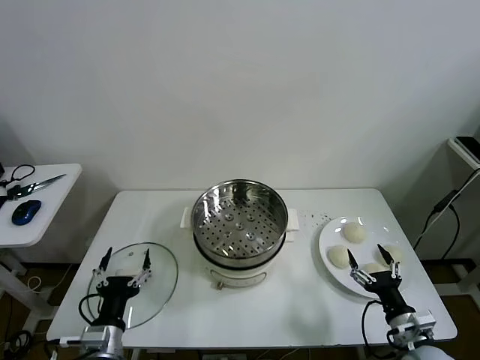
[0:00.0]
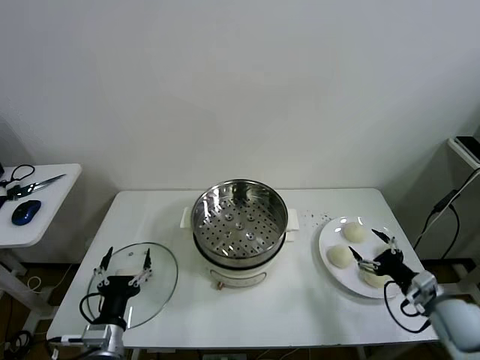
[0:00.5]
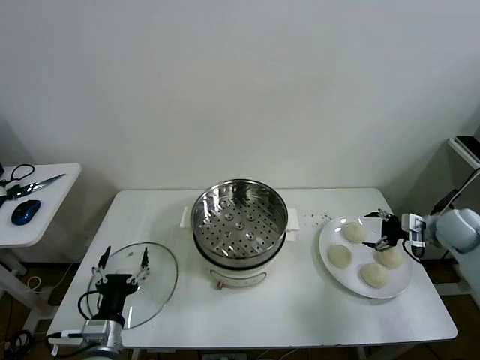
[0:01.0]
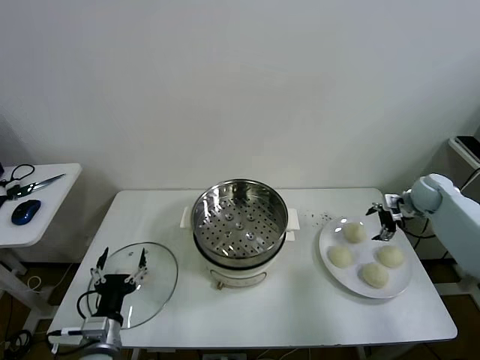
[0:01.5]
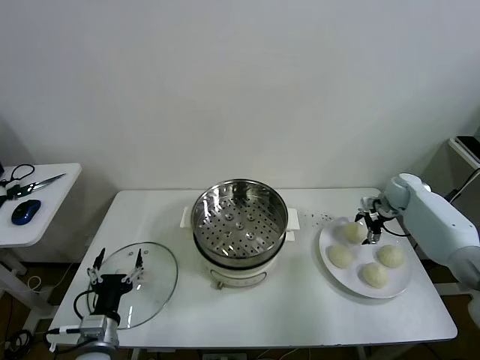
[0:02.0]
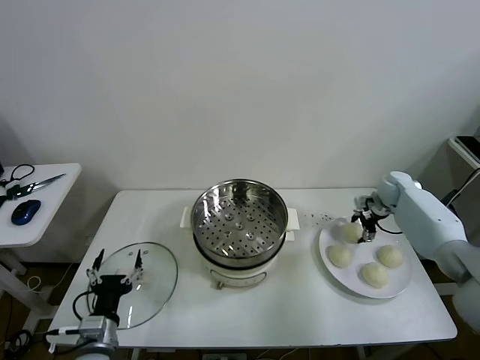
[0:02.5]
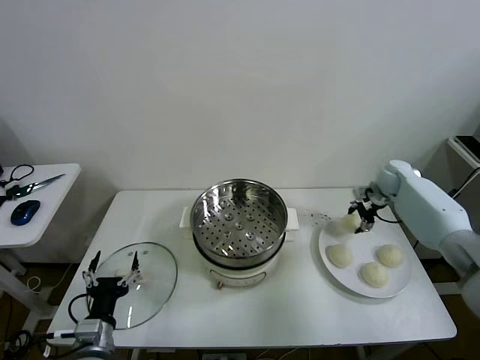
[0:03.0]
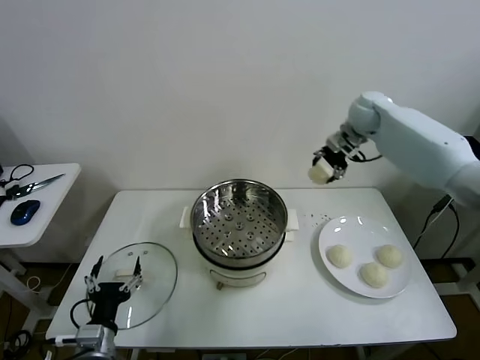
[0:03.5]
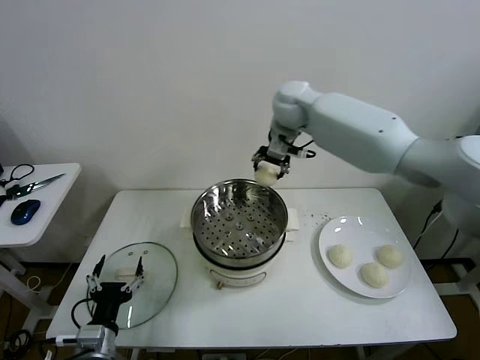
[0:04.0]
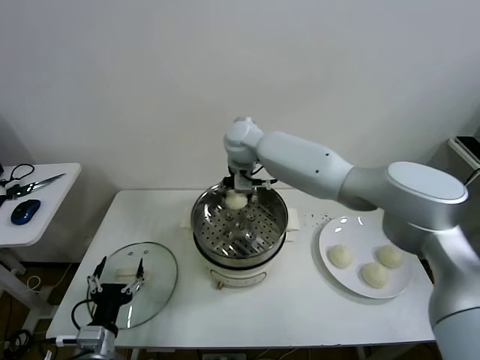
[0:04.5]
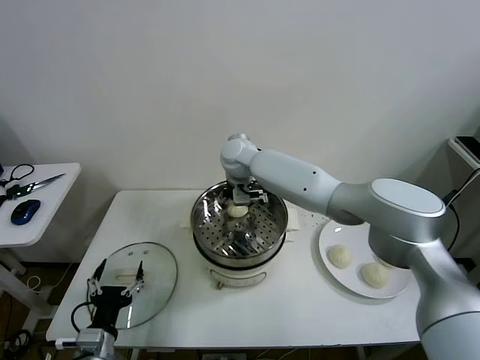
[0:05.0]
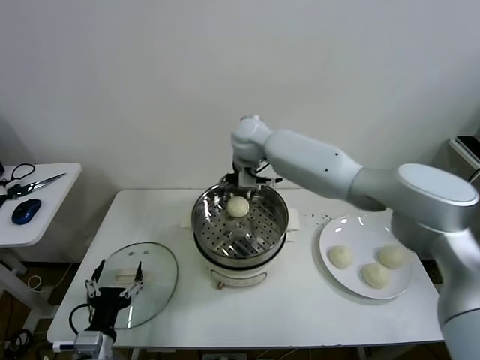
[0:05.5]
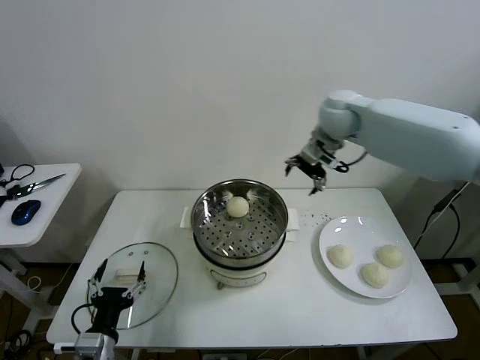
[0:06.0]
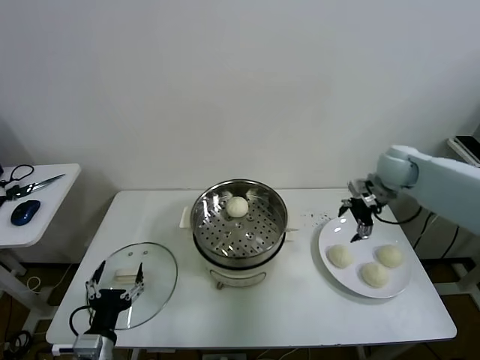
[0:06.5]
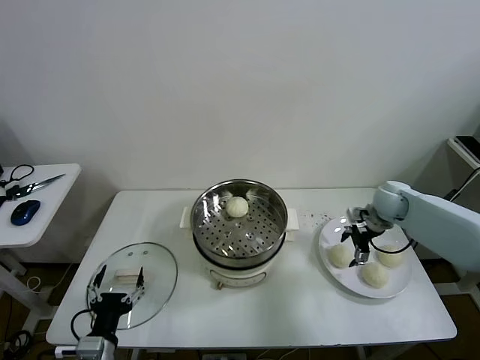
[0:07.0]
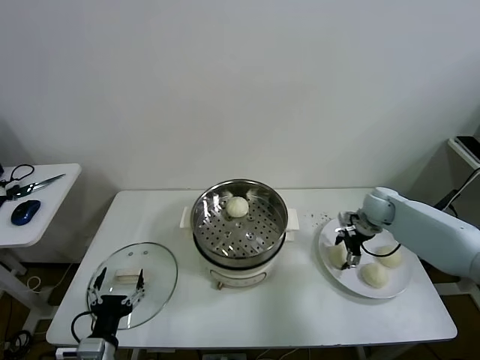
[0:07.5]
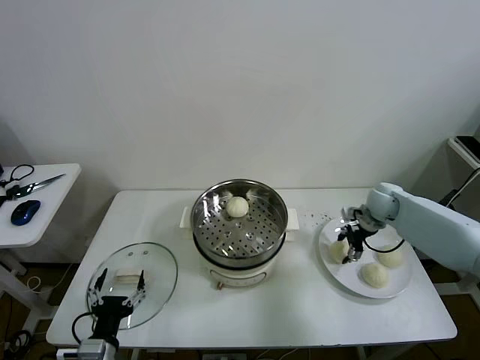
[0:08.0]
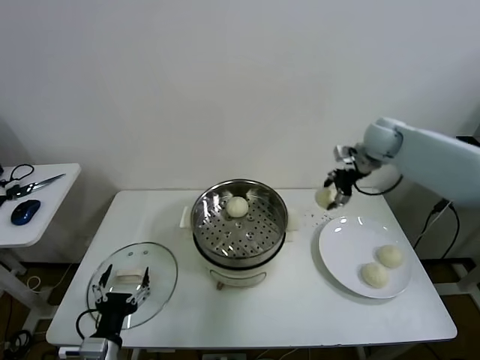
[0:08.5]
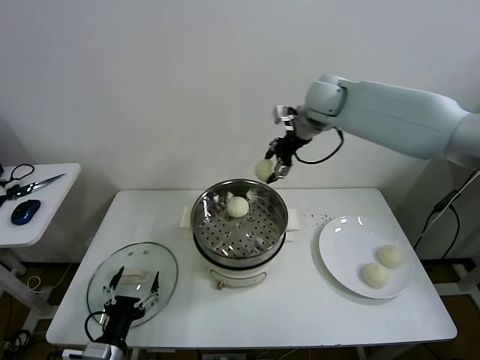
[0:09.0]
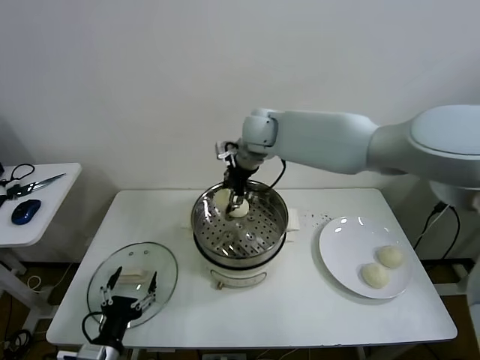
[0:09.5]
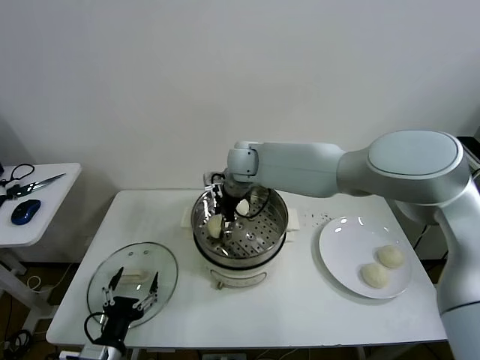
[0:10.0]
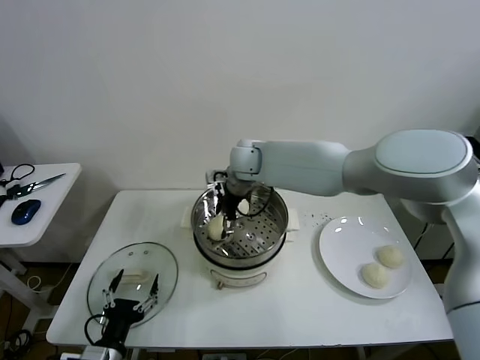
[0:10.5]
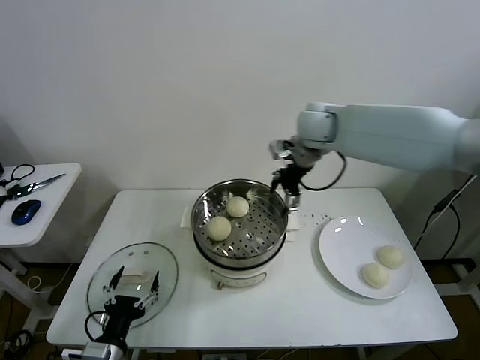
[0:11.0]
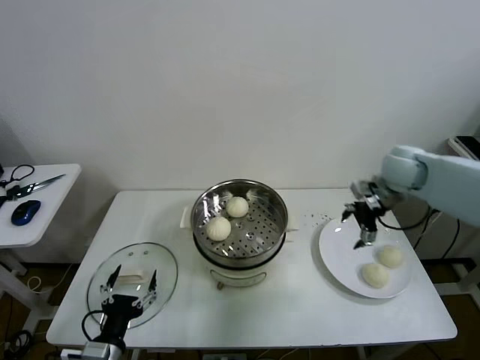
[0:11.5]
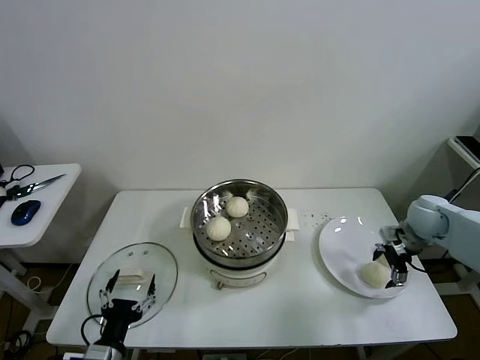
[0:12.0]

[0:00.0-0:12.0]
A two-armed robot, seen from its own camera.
Task of the whole recording: take steamed baozi put them in steamer then cover it.
Step, 0:00.0 to 0:02.5: Grasp the baozi in the plate with right gripper.
Step, 0:03.0 to 0:05.0: Place the baozi on the steamer with right gripper.
Step, 0:05.5 to 0:07.5: Grasp the baozi in the plate with right gripper.
Step, 0:08.0 to 0:10.0: Place the baozi on the steamer with right gripper.
0:02.0 to 0:04.0: The right gripper moves to the left and upward, about 40 cm, and closes.
0:04.0 to 0:06.0: The right gripper shifts approximately 15 cm to the right, and opens.
0:06.0 to 0:08.0: The right gripper is displaced downward and to the right by roughly 25 cm, and closes up.
0:08.0 to 0:10.0: The right gripper travels to the left by approximately 35 cm.
0:10.0 to 0:12.0: The right gripper heads to the right, covering about 40 cm, and opens its fingers.

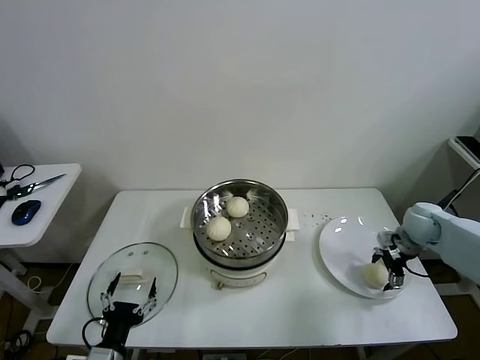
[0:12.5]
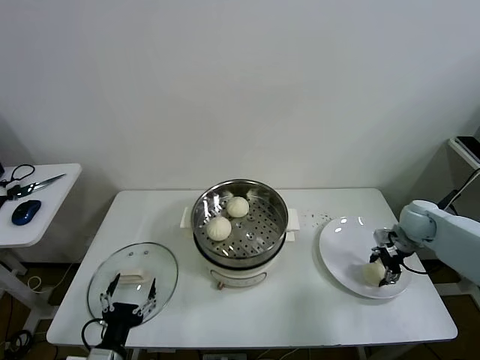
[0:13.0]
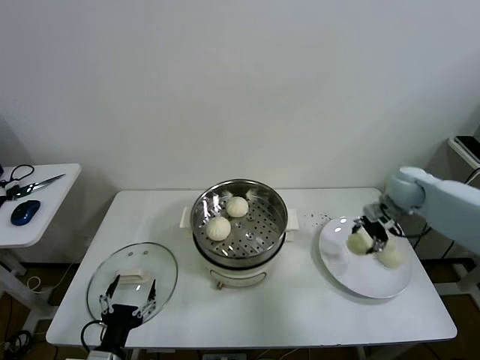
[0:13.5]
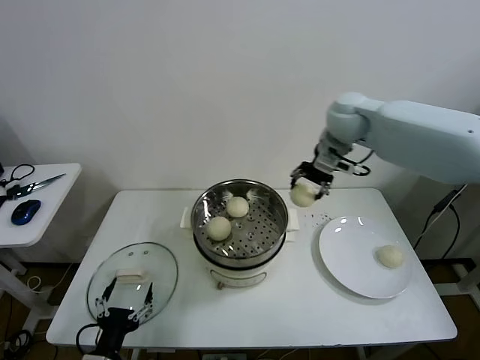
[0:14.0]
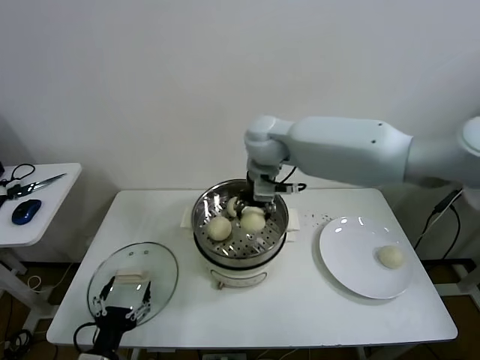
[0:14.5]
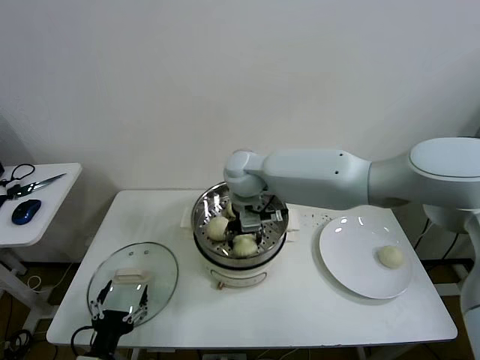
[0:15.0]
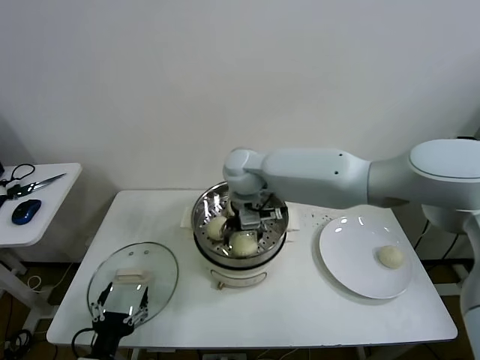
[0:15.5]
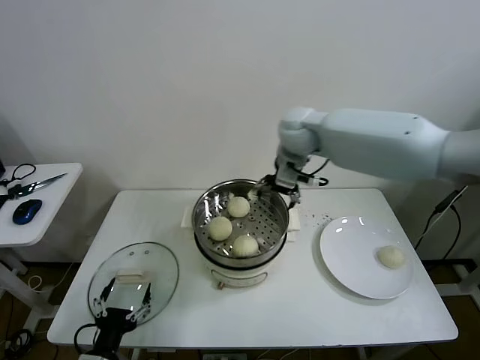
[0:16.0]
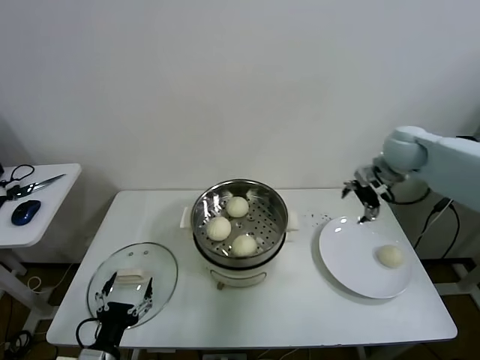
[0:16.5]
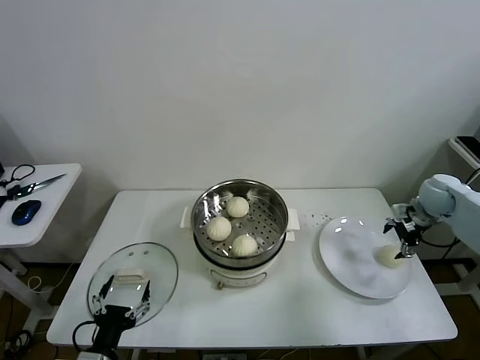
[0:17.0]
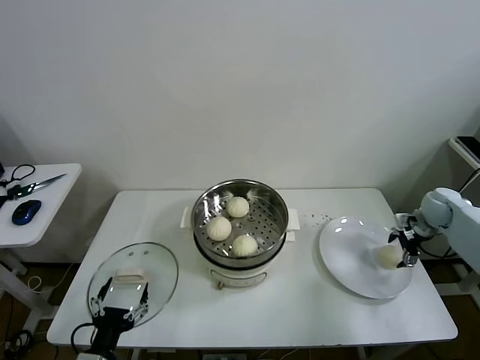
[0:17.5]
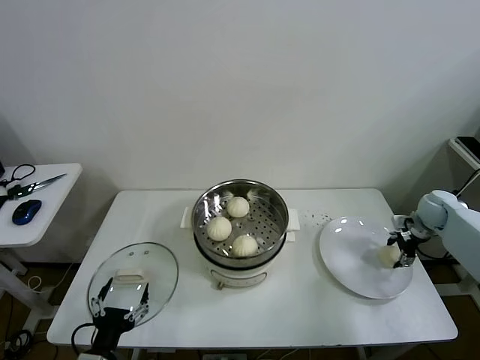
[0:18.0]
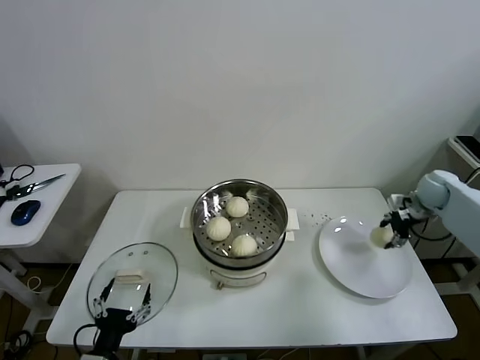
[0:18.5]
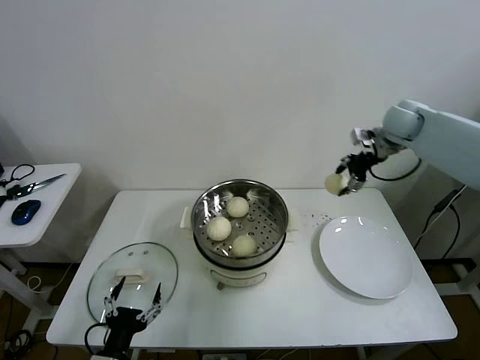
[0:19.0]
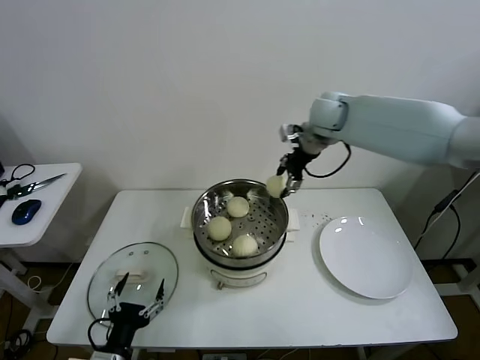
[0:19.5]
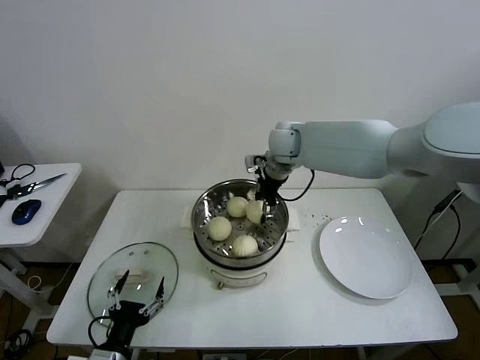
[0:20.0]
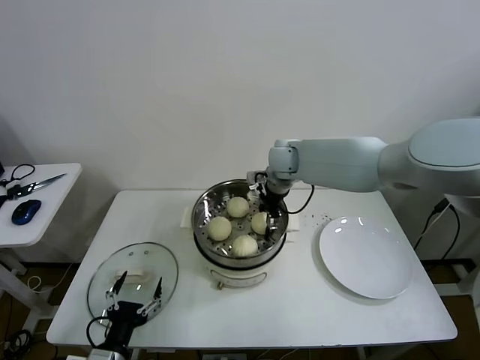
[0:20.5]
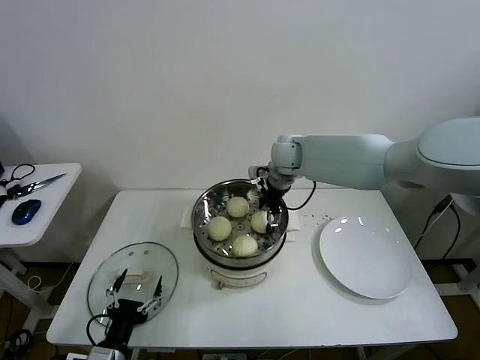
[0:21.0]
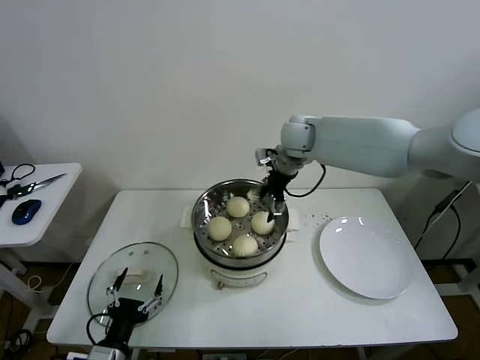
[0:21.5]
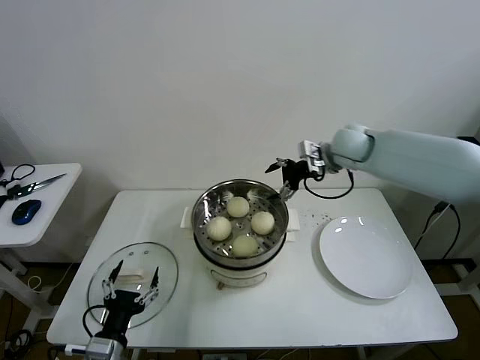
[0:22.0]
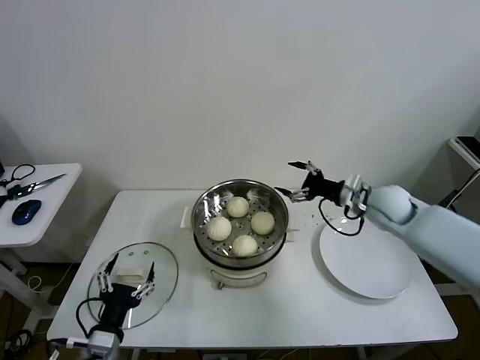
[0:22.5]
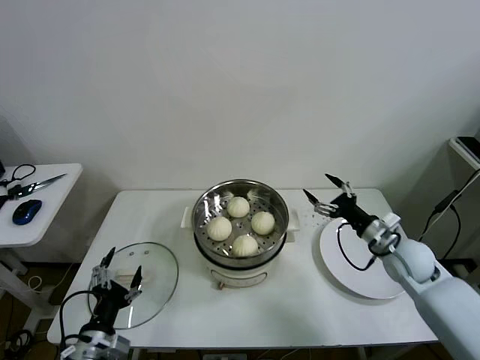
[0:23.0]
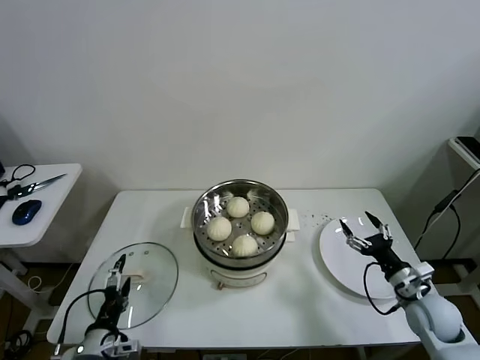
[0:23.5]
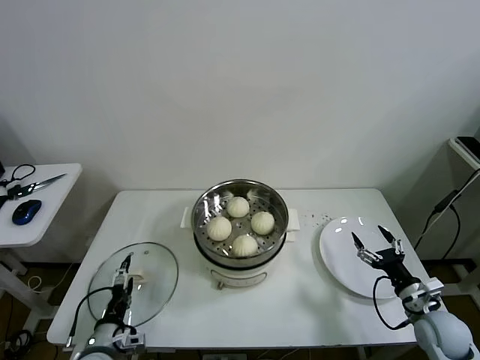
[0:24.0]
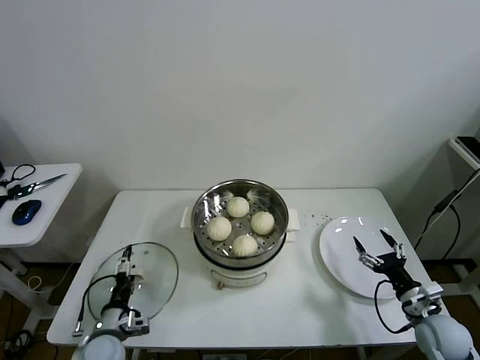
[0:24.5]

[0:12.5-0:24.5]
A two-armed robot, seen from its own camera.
Task of the whole recording: take steamed baozi put them in steamer then cover it.
Step, 0:13.5 to 0:15.0: Place the baozi on the steamer with right gripper.
Step, 0:15.5 to 0:18.0: Grasp the baozi in the plate with right gripper.
Step, 0:18.5 to 0:20.5: Place the baozi on the steamer with right gripper.
0:12.5 to 0:14.5: The right gripper moves to the left and upward, roughly 50 cm, and closes.
0:14.5 to 0:16.5: The right gripper goes about 35 cm to the right, and opens its fingers.
0:16.5 to 0:18.5: The right gripper moves to the right and downward, approximately 15 cm, and closes up.
0:18.5 to 0:20.5: The right gripper moves to the left, approximately 40 cm.
0:20.5 to 0:22.5: The right gripper is displaced to the right and backward by about 25 cm, and opens up.
0:22.5 to 0:24.5: The left gripper travels downward and forward by approximately 10 cm. Meanwhile the right gripper travels backward, downward and to the right by some 30 cm.

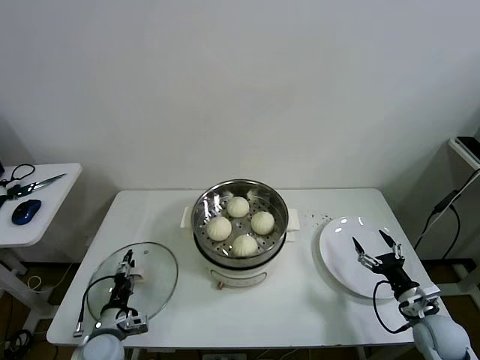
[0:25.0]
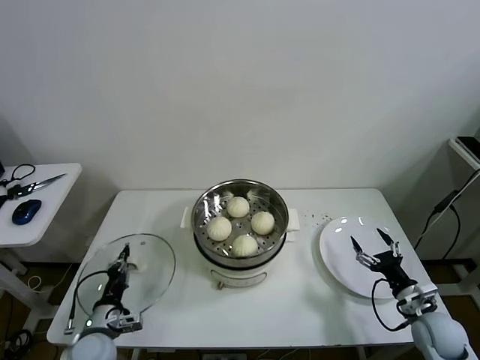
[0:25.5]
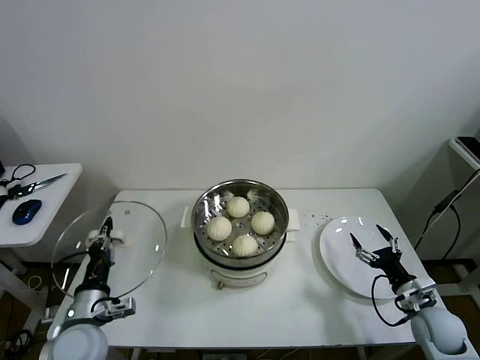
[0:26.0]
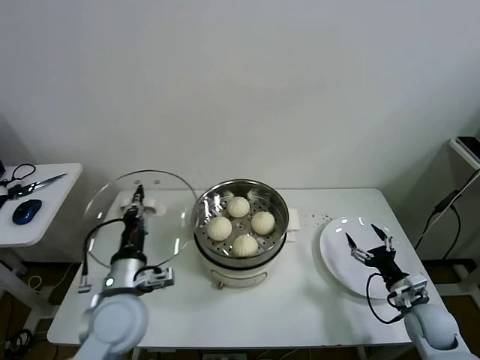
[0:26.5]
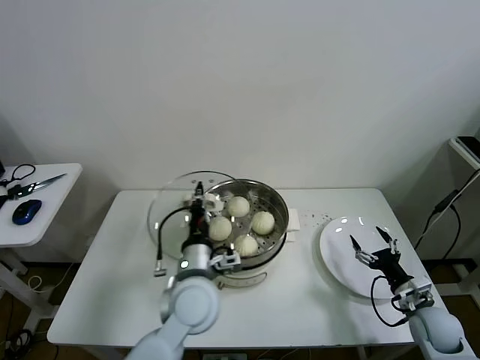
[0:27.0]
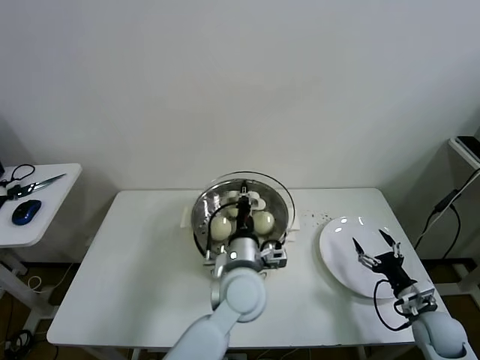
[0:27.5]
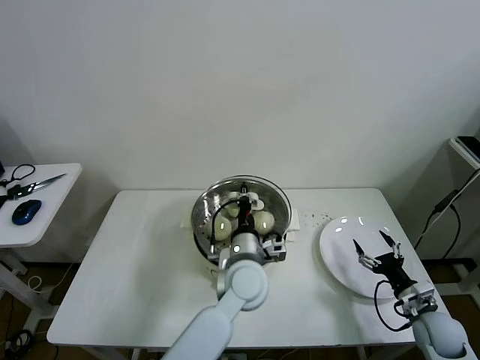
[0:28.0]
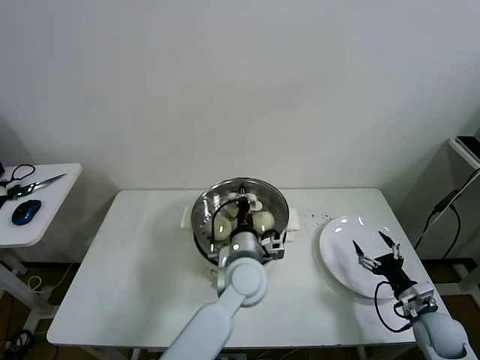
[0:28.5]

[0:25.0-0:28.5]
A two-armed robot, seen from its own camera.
Task of the whole recording: take steamed baozi put them in steamer then cover it.
0:25.0 to 0:27.0: The left gripper heads to the right and upward, covering about 30 cm, and closes up.
0:27.0 to 0:28.5: The left gripper travels to the right and forward by about 10 cm.
